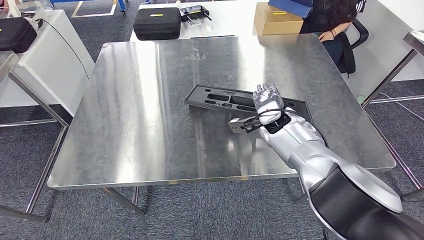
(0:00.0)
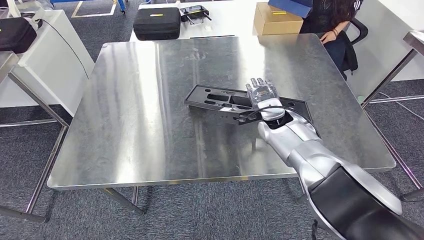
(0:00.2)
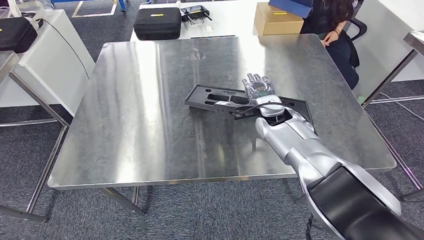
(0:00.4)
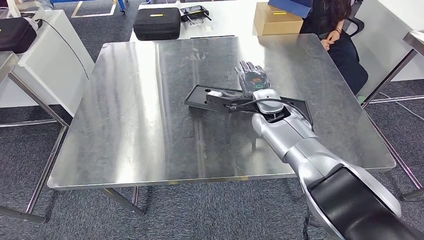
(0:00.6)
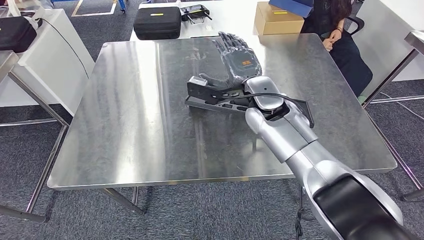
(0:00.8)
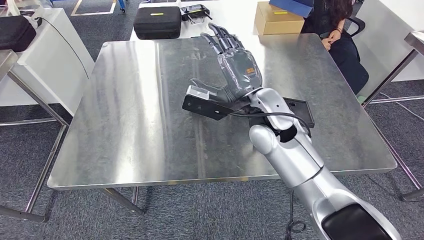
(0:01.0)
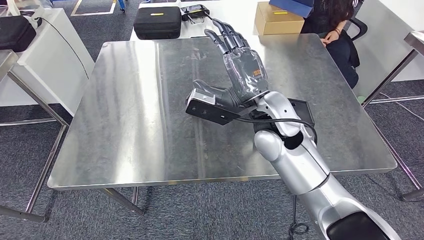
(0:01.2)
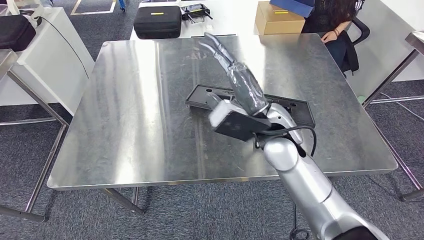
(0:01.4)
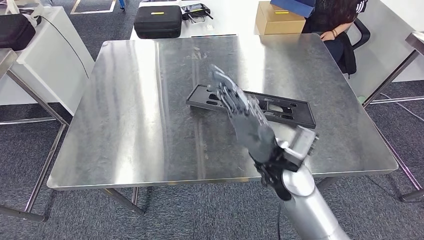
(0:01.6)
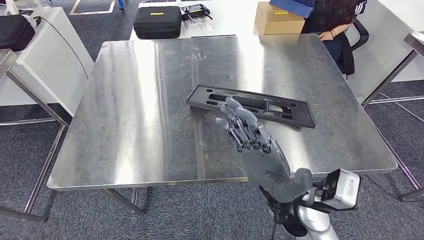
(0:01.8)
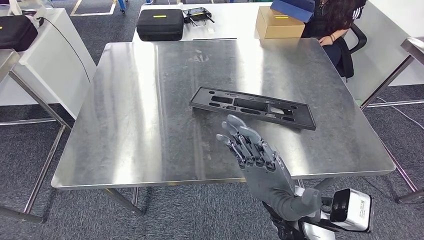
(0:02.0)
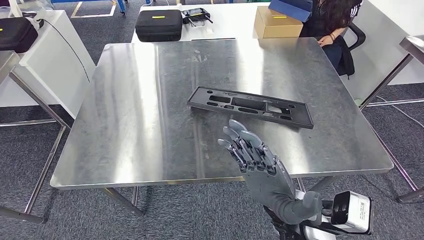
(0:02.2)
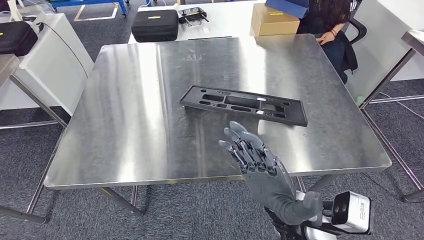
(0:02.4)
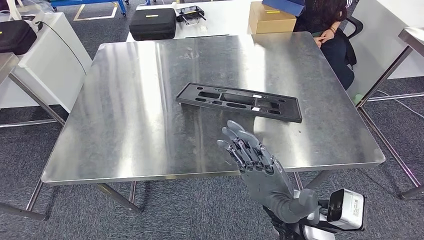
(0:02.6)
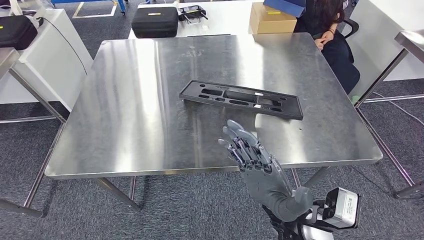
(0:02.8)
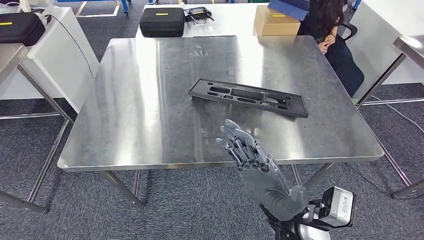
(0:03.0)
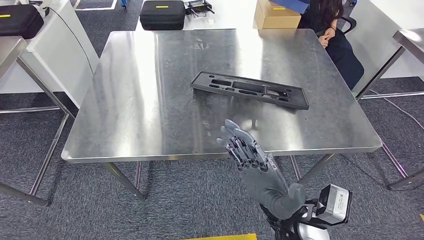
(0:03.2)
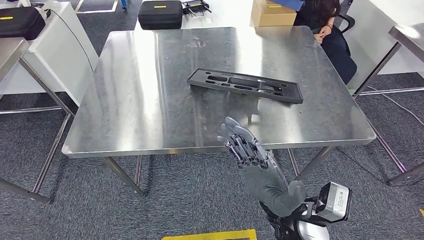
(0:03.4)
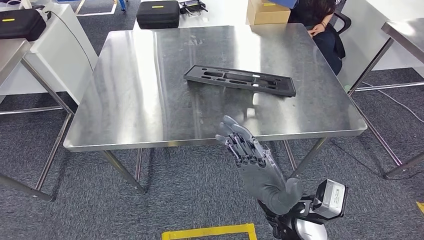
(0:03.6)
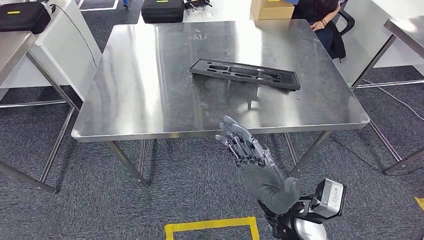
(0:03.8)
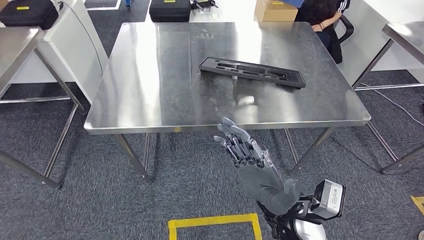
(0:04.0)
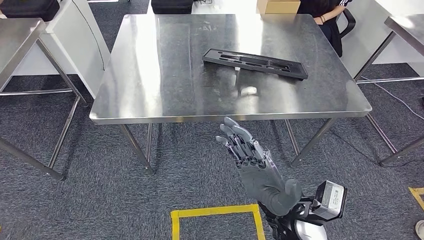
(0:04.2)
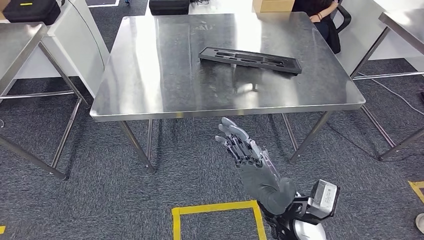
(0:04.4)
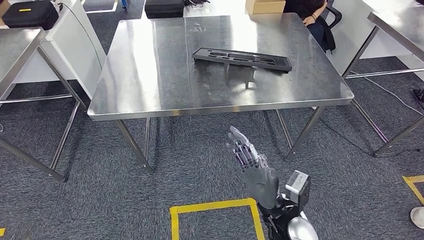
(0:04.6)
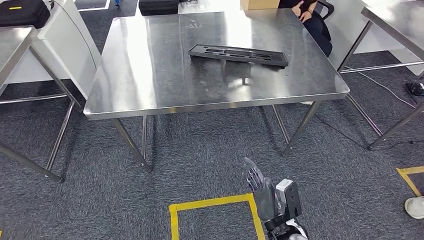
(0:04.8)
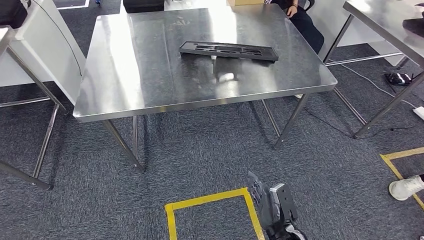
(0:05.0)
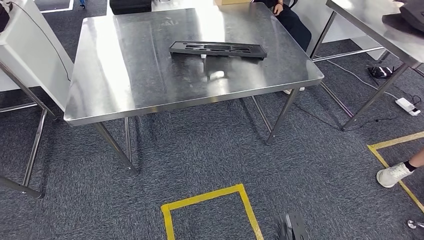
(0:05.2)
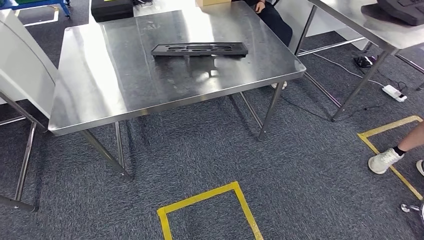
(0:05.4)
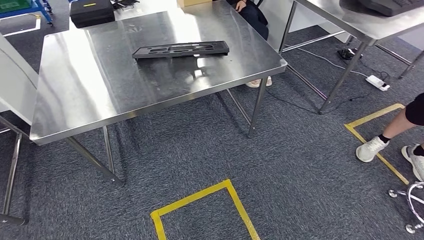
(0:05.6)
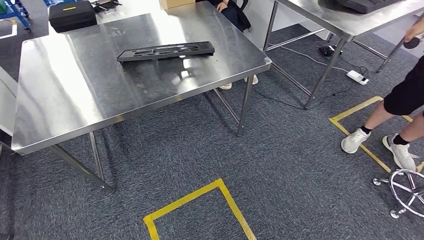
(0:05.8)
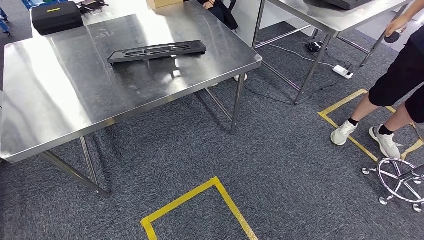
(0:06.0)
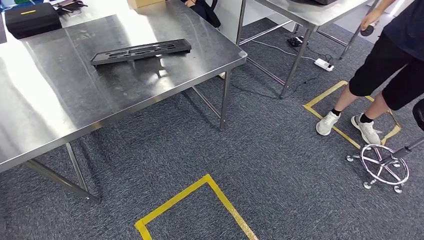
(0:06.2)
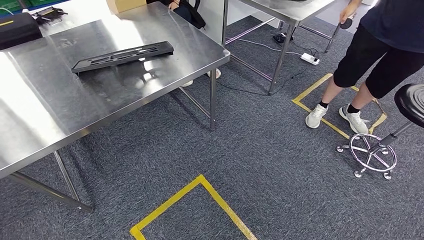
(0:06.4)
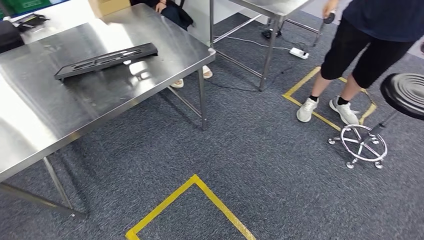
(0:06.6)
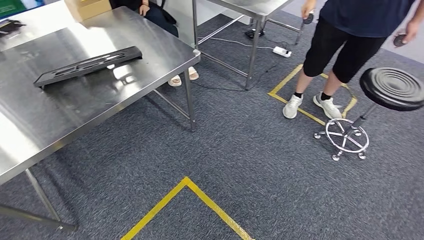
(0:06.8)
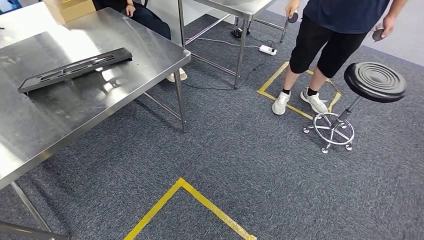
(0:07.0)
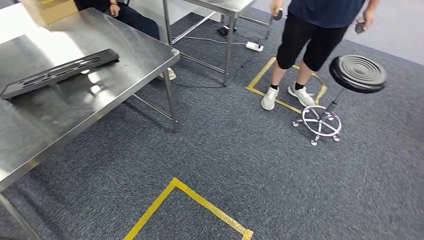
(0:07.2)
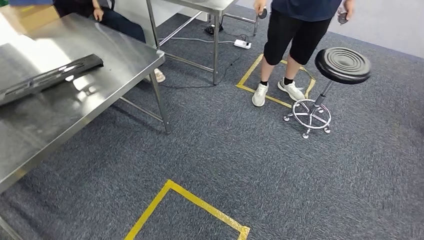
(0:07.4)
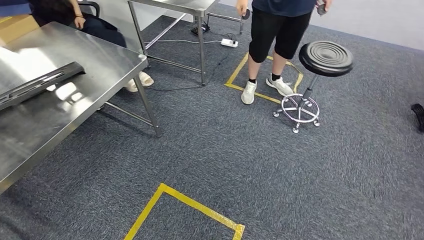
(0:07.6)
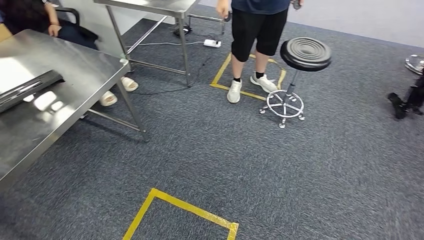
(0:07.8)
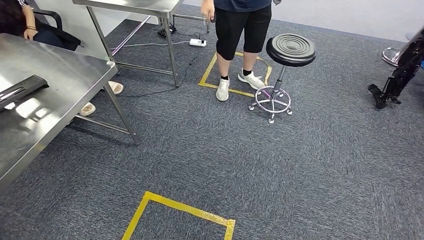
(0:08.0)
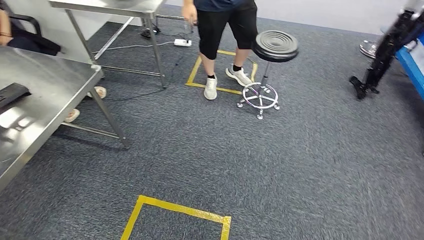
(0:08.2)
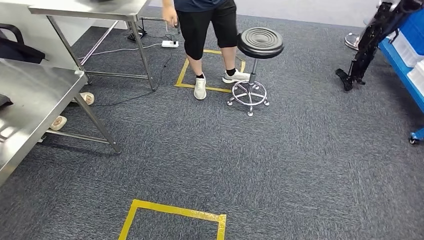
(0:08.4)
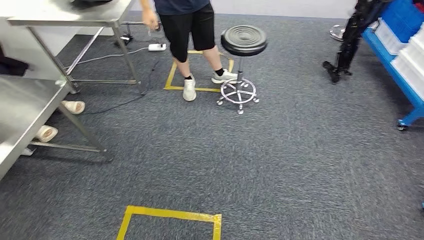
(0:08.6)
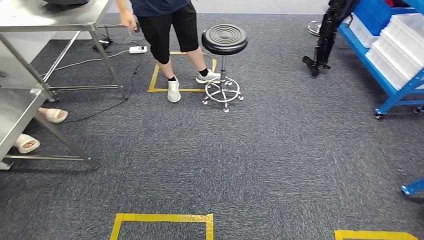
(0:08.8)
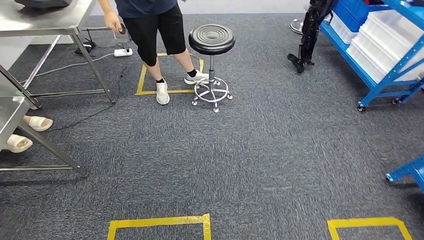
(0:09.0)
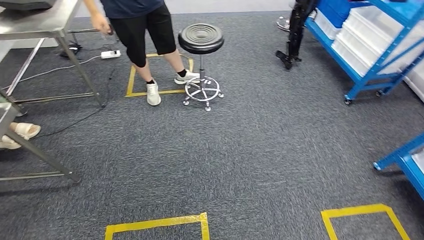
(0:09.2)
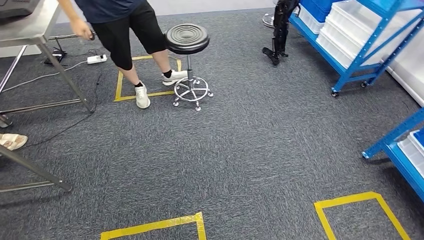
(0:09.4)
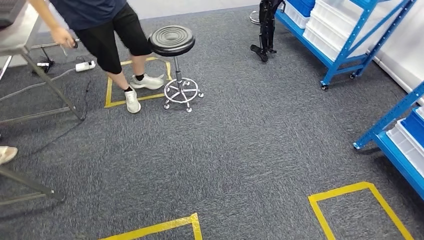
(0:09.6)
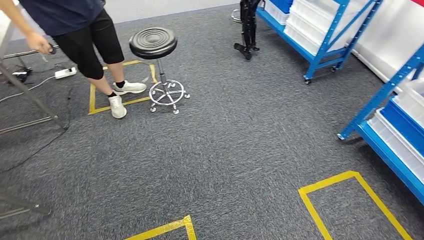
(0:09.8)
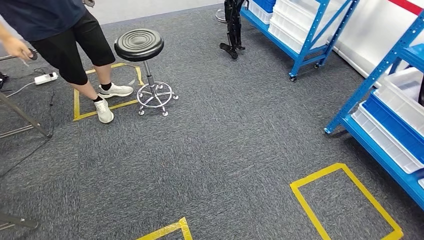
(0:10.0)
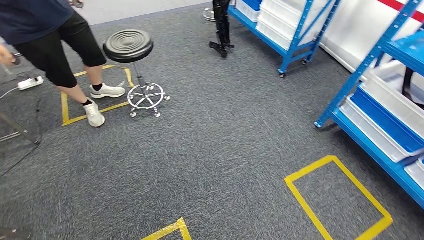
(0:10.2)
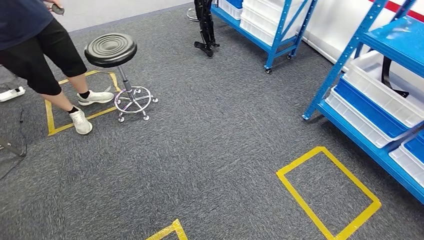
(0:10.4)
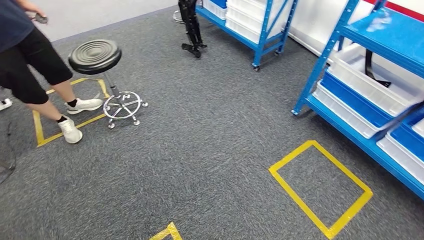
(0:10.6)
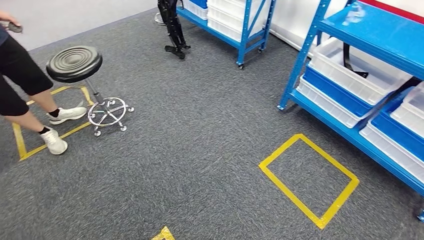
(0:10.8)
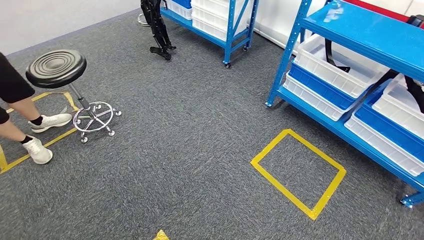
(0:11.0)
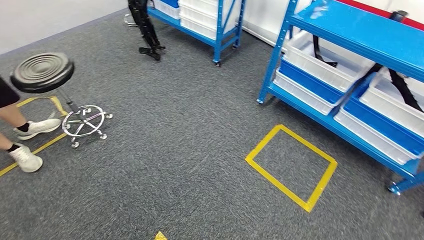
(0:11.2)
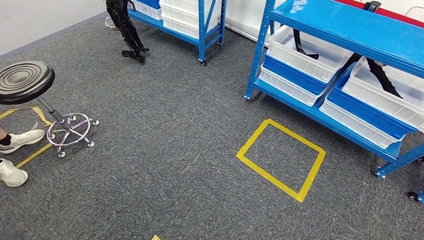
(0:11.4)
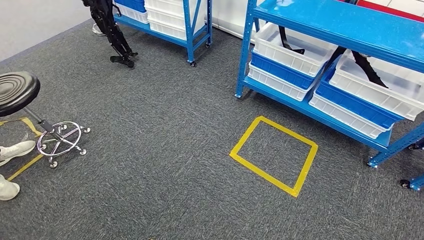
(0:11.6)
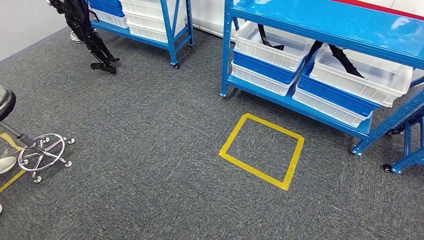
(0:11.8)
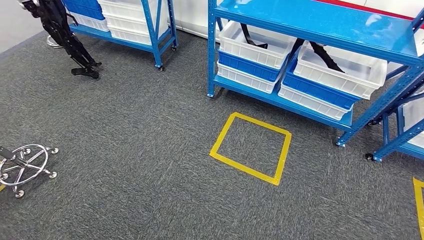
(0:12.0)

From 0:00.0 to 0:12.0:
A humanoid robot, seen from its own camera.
Step, from 0:00.0 to 0:05.6: Insert the large parts into the corresponding slots on the workbench.
From 0:00.0 to 0:01.6: The right hand heads backward, covering roughly 15 cm.

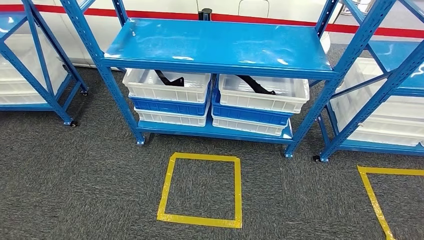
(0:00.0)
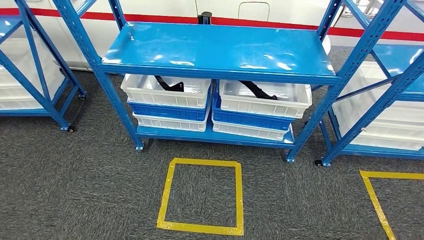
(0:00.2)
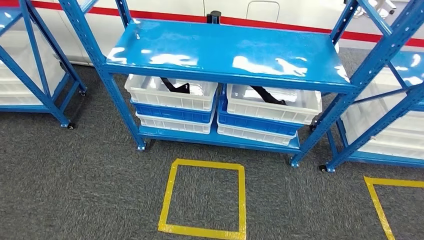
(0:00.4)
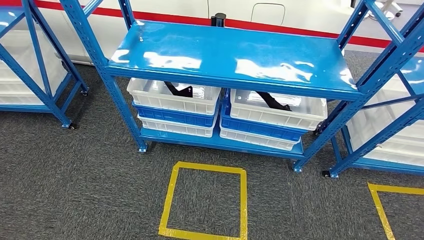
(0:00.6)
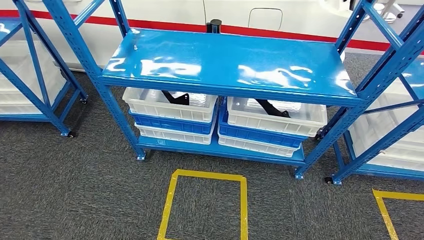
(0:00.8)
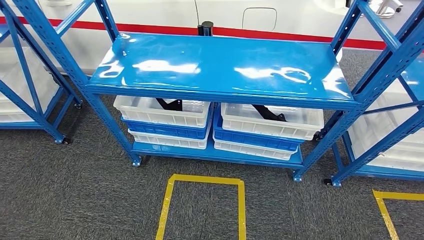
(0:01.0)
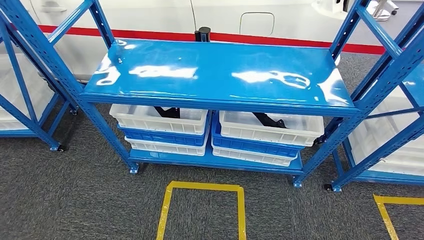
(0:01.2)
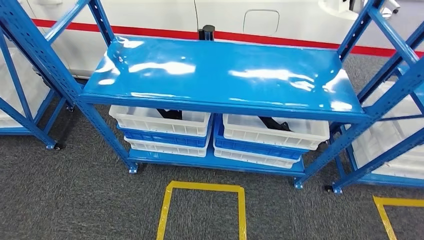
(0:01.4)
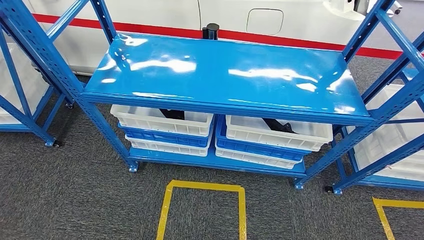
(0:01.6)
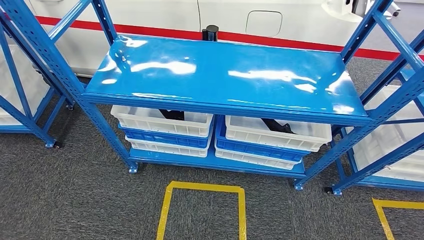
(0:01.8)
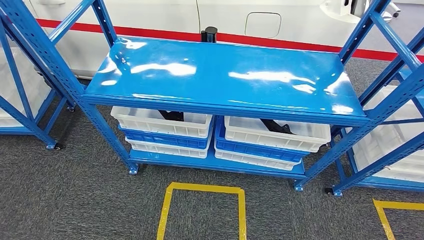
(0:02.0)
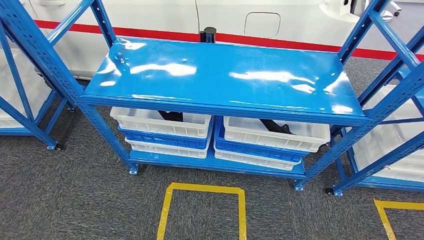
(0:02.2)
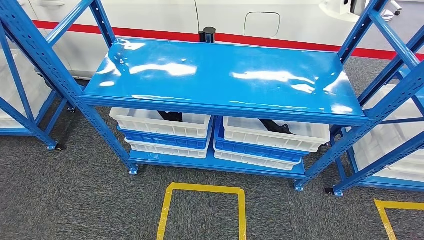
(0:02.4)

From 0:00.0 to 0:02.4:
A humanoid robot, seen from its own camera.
Step, from 0:00.0 to 0:02.4: Return to the initial position at the shelf.
